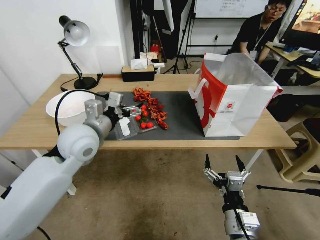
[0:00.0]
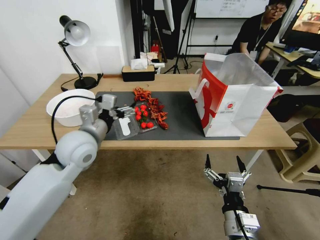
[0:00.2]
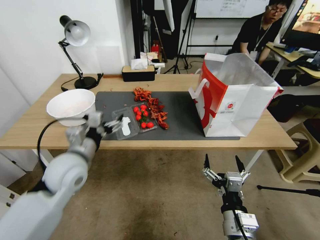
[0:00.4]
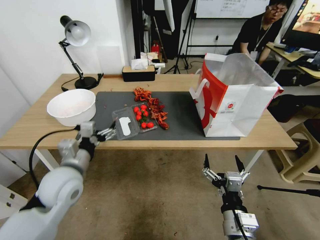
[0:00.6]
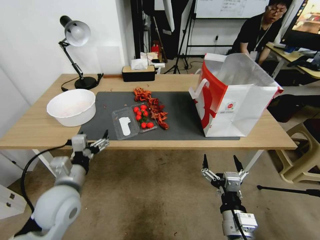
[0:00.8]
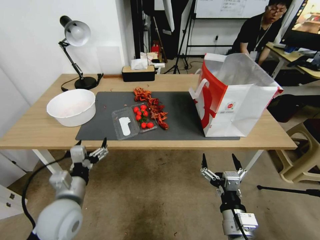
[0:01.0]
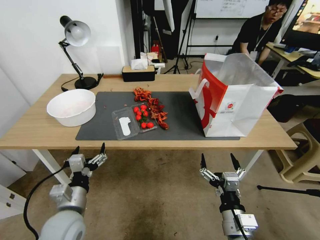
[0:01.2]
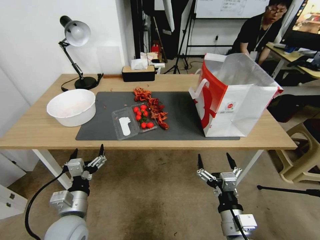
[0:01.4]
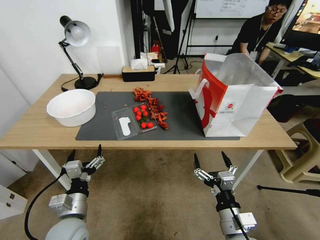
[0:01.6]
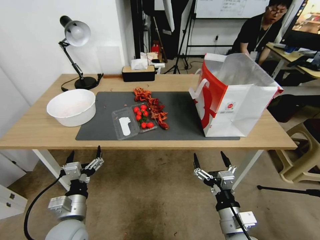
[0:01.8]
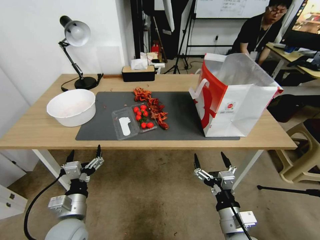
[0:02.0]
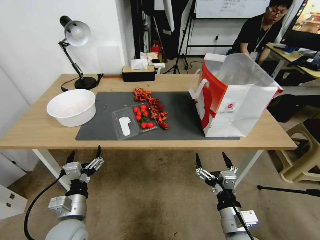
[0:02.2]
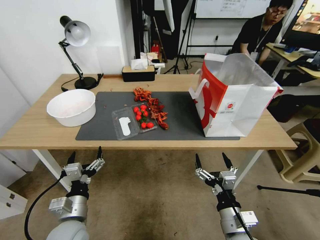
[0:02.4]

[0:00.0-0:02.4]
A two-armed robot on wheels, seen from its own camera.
0:00.0 to 0:01.2: The left gripper goes about 25 cm downward and backward.
0:01.2 to 0:02.4: There are only small adjustments of the grippers.

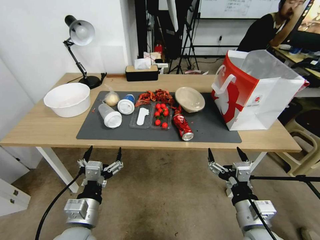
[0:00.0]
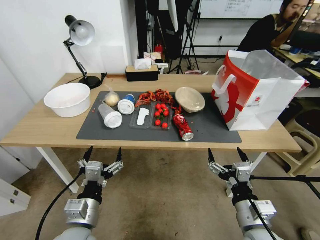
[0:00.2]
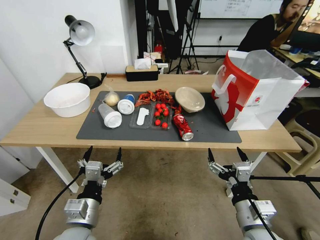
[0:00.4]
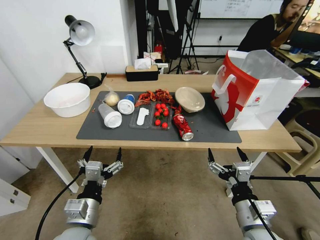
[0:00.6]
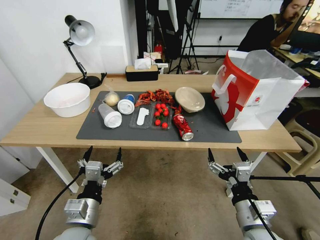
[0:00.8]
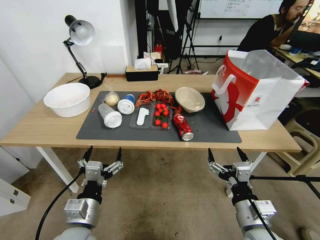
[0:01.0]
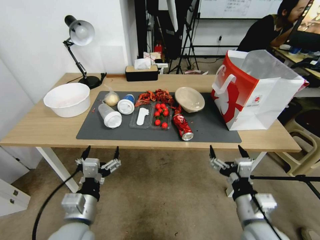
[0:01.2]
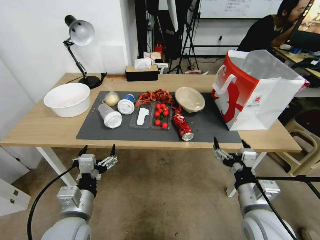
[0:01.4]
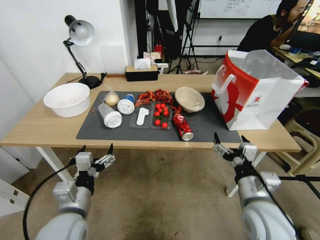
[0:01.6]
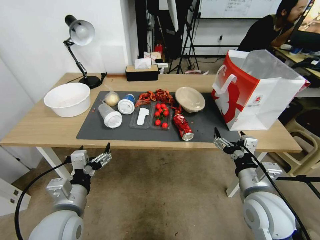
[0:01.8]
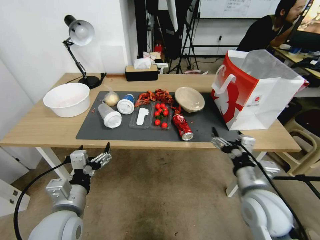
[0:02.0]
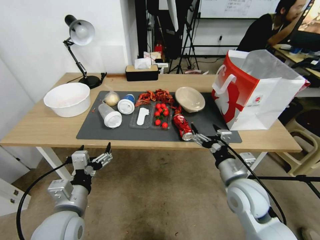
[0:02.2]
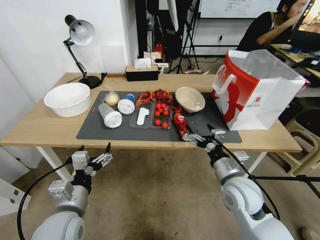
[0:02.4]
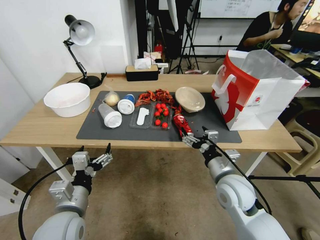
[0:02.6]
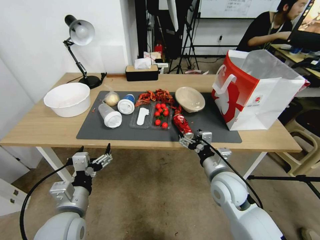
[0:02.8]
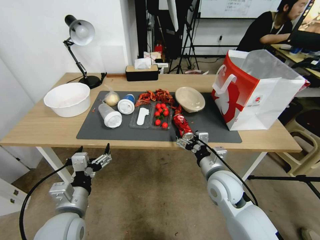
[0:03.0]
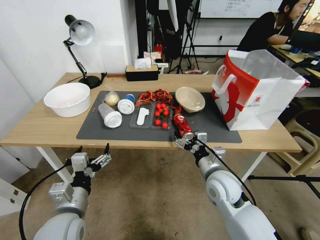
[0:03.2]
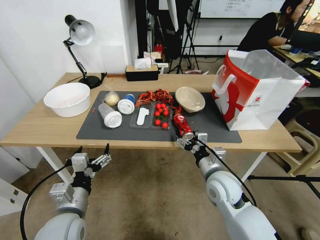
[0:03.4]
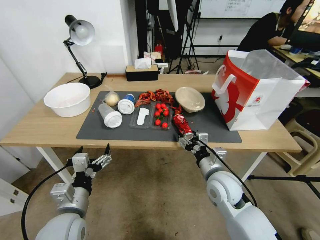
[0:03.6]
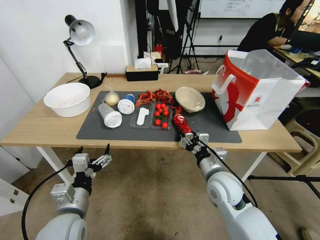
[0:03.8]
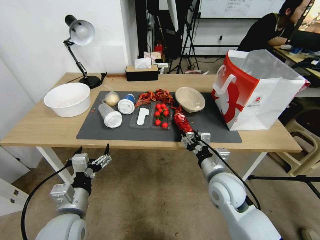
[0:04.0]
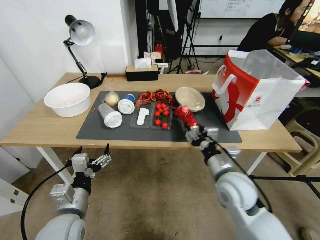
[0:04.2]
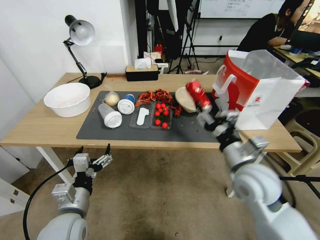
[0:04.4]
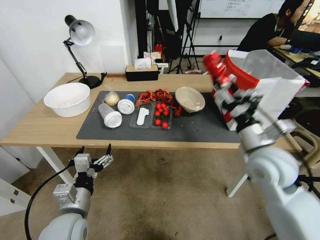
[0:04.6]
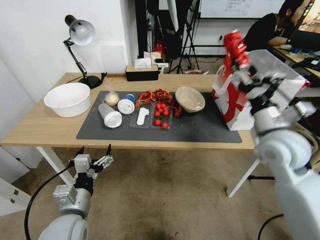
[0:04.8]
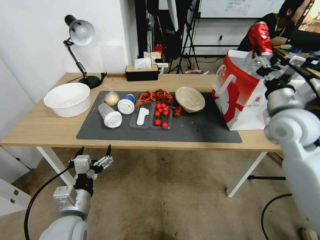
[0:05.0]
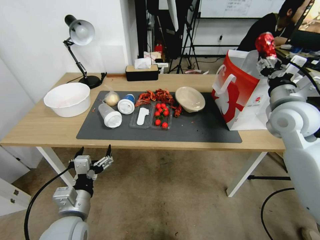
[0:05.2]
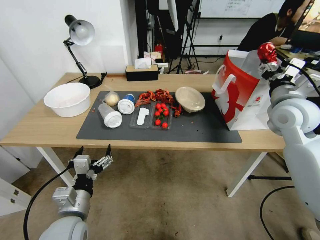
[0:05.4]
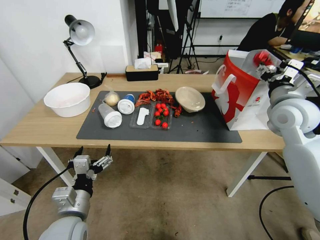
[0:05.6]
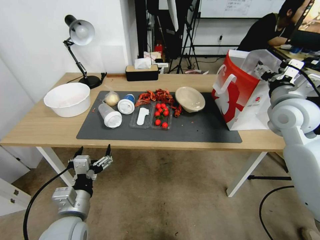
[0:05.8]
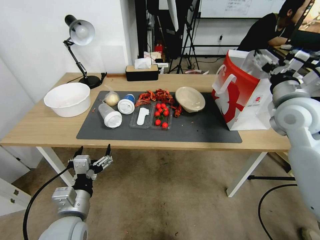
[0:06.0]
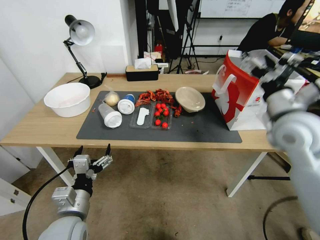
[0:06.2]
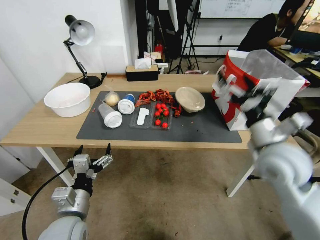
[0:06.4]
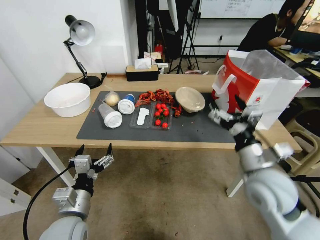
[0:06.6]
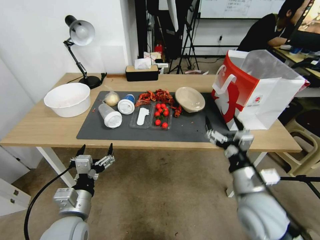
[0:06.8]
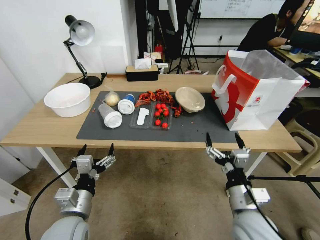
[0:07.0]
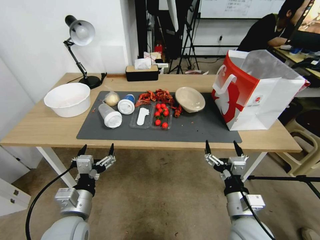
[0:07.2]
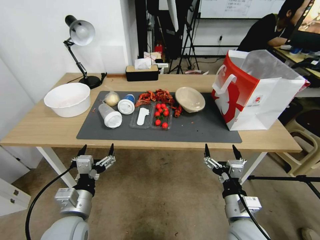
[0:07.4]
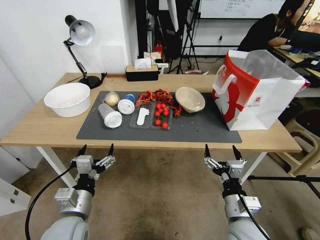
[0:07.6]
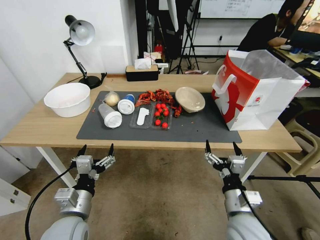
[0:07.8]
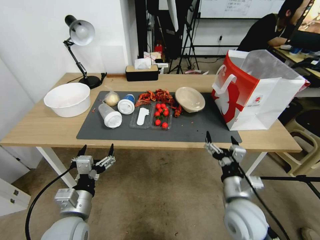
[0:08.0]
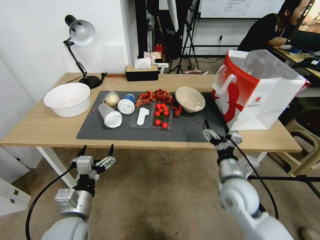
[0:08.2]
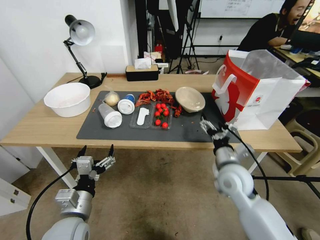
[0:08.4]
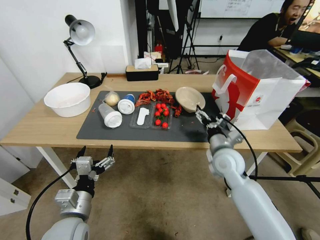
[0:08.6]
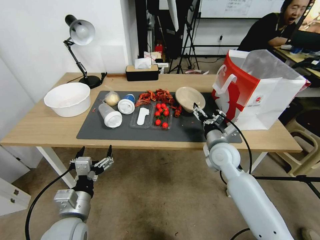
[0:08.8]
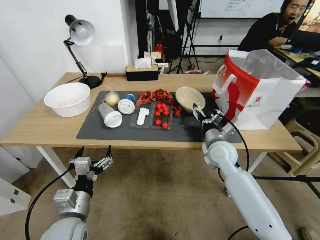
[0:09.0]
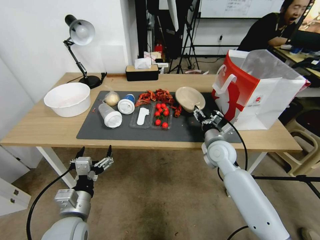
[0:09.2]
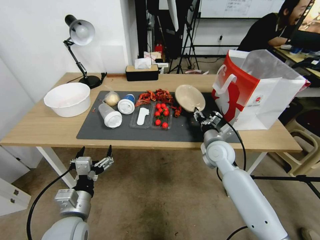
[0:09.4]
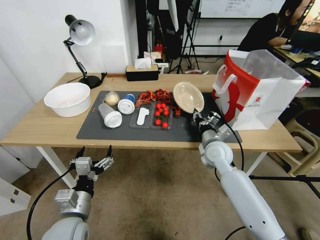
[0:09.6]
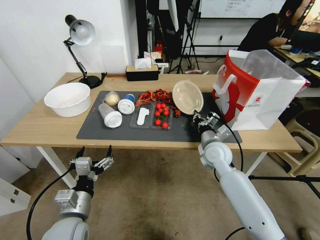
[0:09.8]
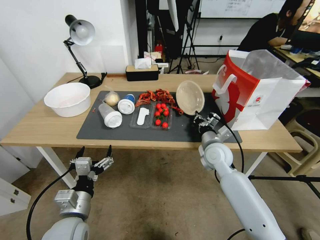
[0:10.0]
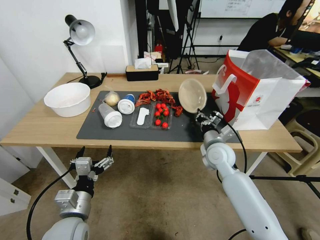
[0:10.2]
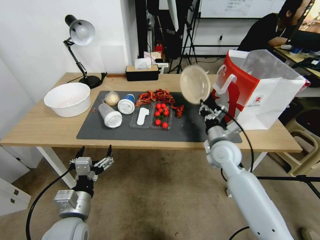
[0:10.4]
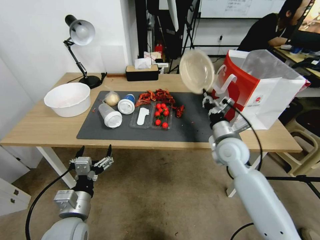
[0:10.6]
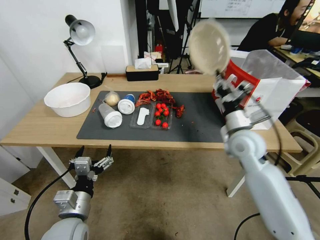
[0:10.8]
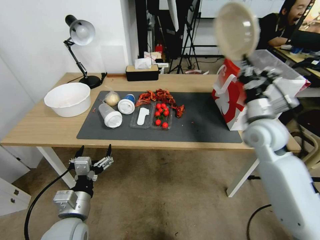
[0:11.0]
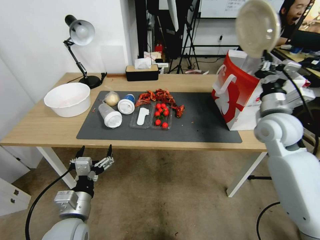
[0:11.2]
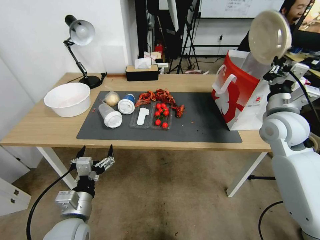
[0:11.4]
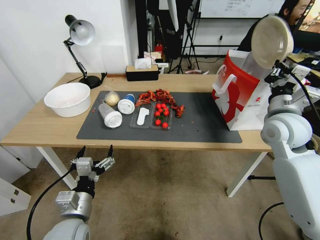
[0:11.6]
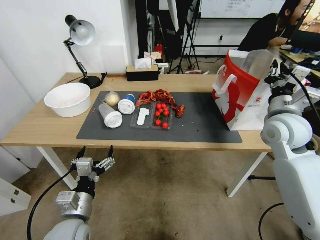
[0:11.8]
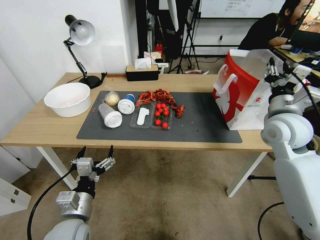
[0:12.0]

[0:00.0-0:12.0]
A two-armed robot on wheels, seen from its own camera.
0:01.6 to 0:03.0: The right gripper moves forward and to the left, some 10 cm.
0:03.0 to 0:04.4: The right gripper heads upward, covering roughly 5 cm, and closes.
0:04.4 to 0:06.0: The right gripper heads upward, to the right and forward, covering about 25 cm, and opens its fingers.
0:06.0 to 0:07.6: The right gripper heads downward, backward and to the left, covering approximately 35 cm.
0:07.6 to 0:09.0: The right gripper shifts roughly 20 cm forward.
0:09.0 to 0:10.4: The right gripper closes.
0:10.4 to 0:12.0: The right gripper heads upward and to the right, covering approximately 20 cm, and opens.

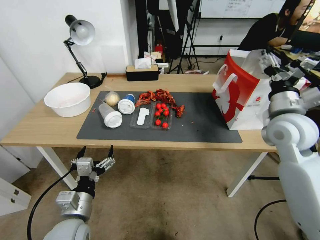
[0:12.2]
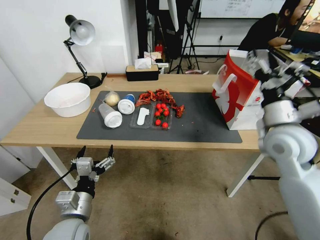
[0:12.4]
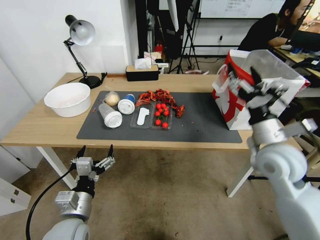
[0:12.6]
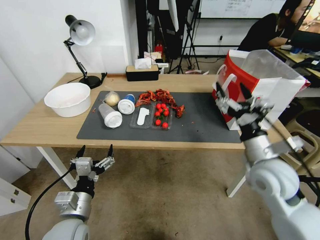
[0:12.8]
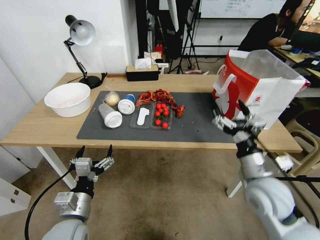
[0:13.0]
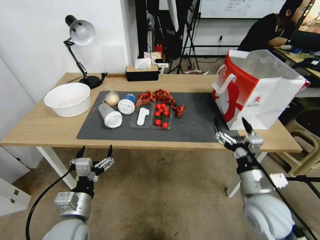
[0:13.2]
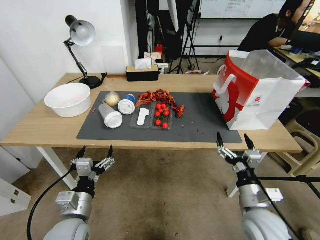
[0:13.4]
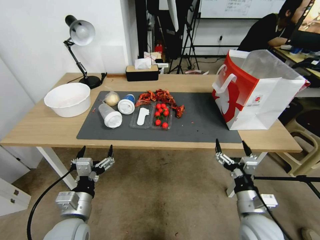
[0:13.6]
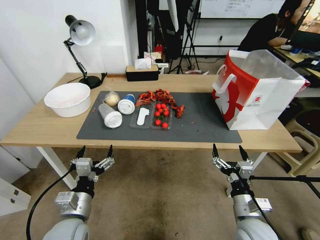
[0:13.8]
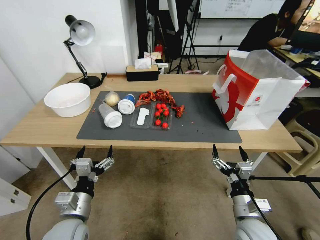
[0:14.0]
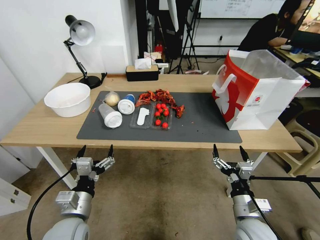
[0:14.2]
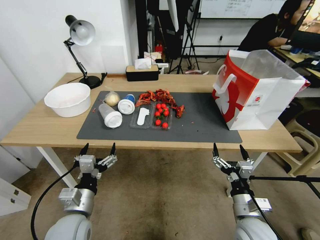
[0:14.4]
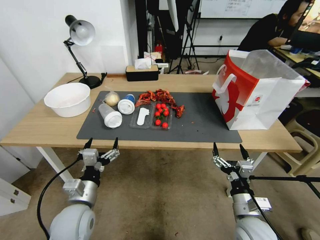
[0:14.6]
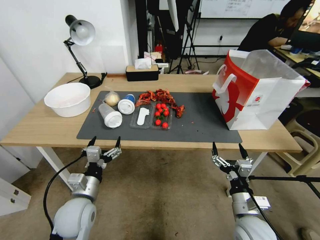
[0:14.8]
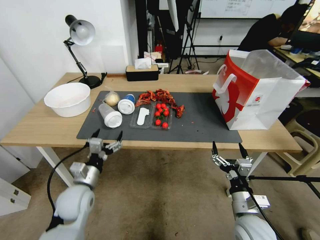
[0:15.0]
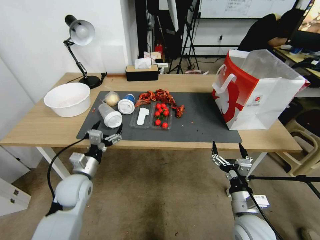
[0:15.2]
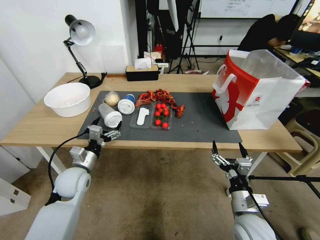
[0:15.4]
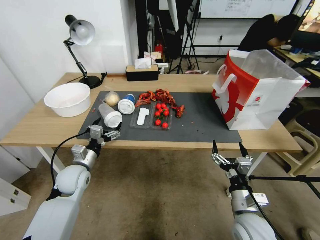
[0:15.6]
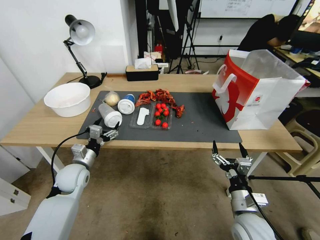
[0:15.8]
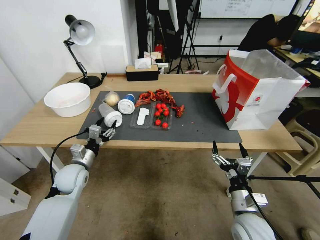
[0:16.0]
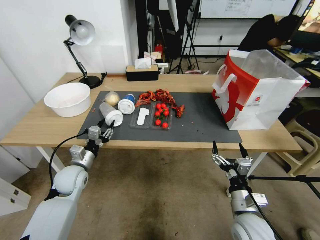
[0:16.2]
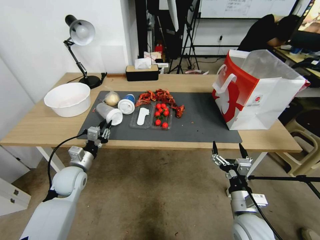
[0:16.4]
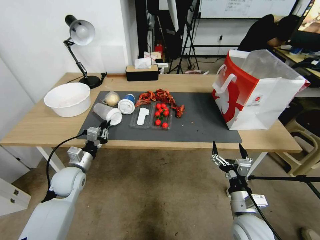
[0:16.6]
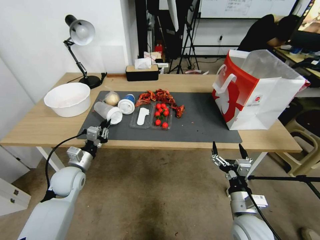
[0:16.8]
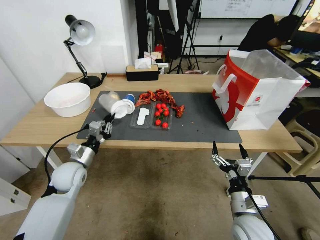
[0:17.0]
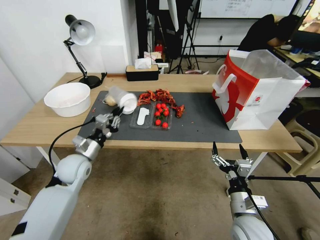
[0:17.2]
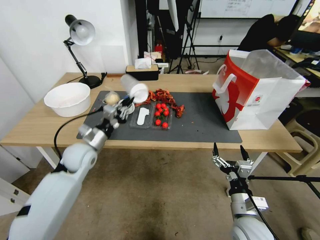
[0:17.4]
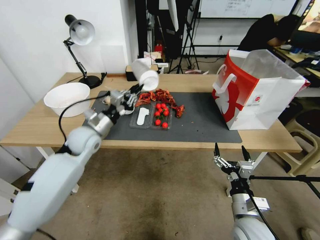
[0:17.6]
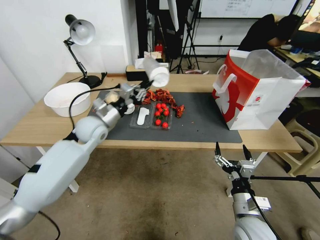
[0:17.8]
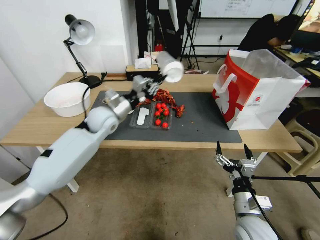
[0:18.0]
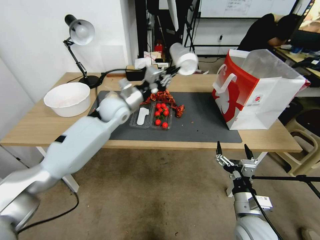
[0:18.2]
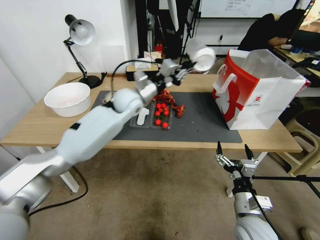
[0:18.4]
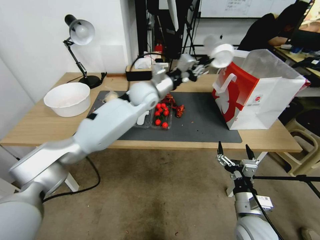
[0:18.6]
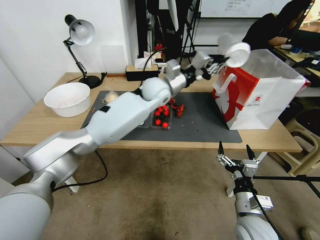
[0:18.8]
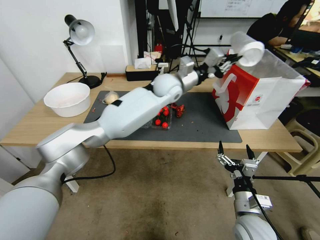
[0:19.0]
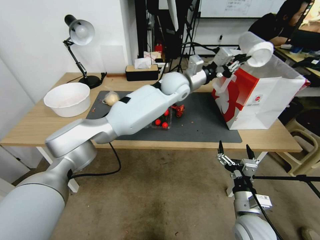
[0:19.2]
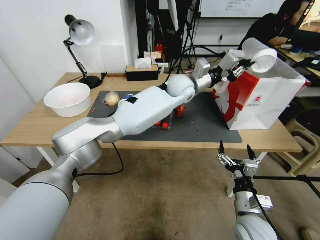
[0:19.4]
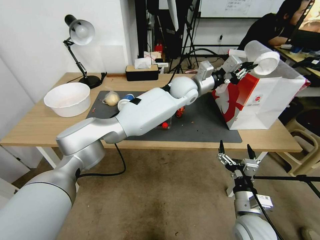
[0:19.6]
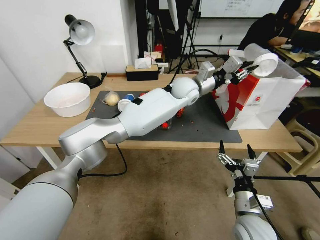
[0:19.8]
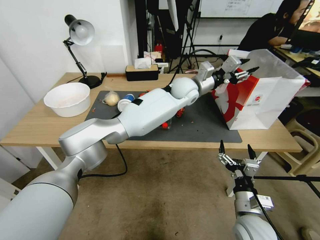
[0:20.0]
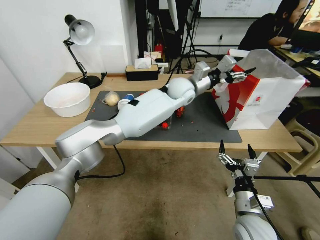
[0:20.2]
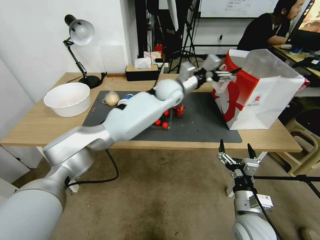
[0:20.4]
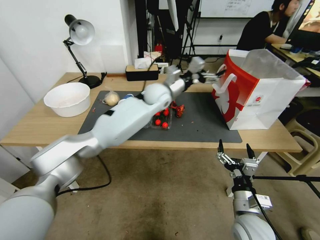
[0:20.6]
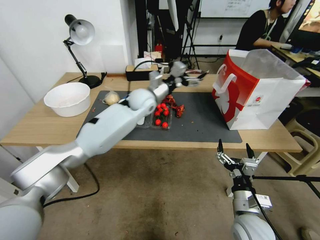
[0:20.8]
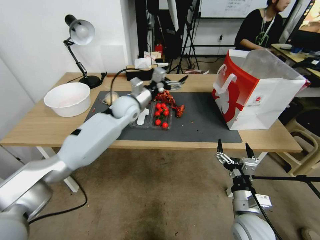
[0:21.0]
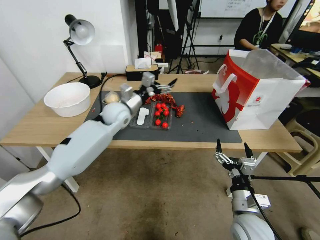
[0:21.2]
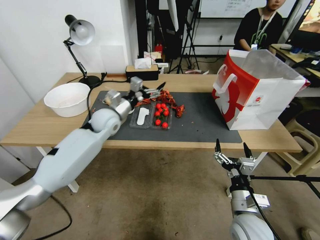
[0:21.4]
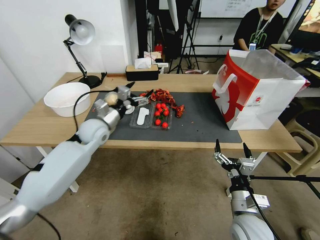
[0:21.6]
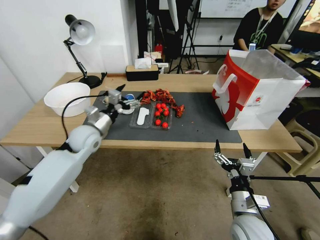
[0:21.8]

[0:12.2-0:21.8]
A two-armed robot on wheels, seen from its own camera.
0:12.2 to 0:13.8: The right gripper heads downward and backward, covering some 30 cm.
0:13.8 to 0:15.4: The left gripper travels forward by roughly 15 cm.
0:15.4 to 0:17.0: The left gripper closes up.
0:17.0 to 0:18.6: The left gripper moves to the right, forward and upward, some 35 cm.
0:18.6 to 0:20.2: The left gripper heads to the right, covering approximately 15 cm, and opens its fingers.
0:20.2 to 0:21.8: The left gripper moves to the left and backward, approximately 35 cm, and opens.
